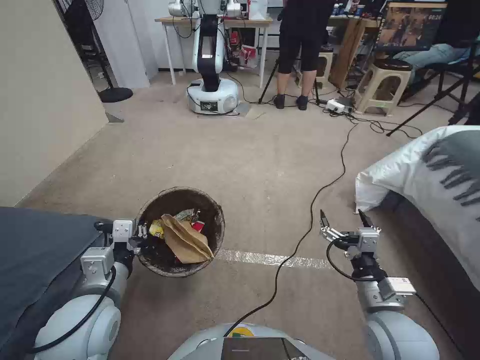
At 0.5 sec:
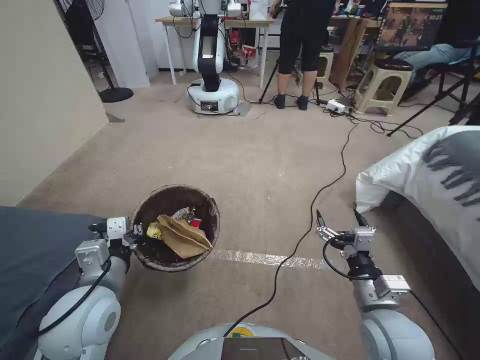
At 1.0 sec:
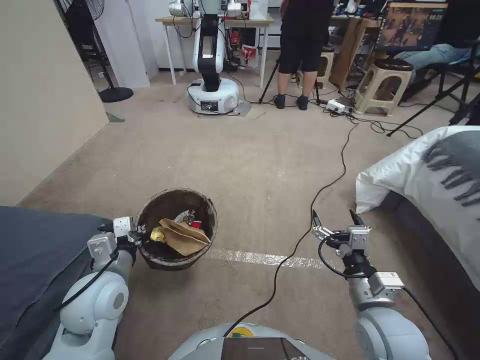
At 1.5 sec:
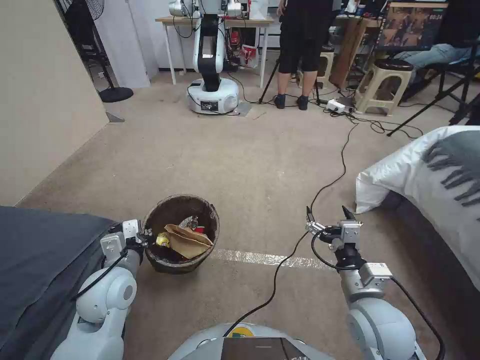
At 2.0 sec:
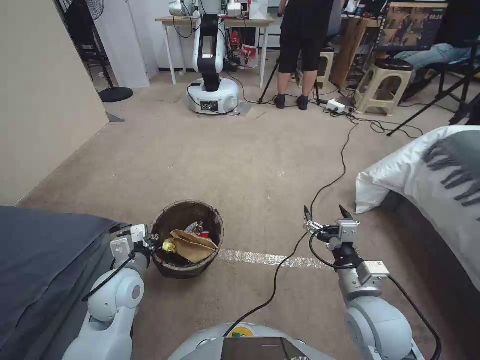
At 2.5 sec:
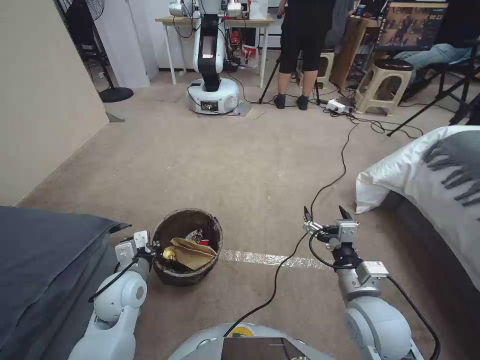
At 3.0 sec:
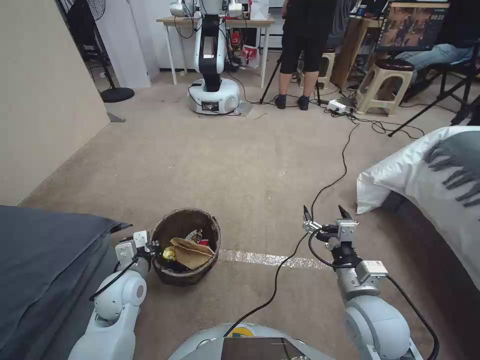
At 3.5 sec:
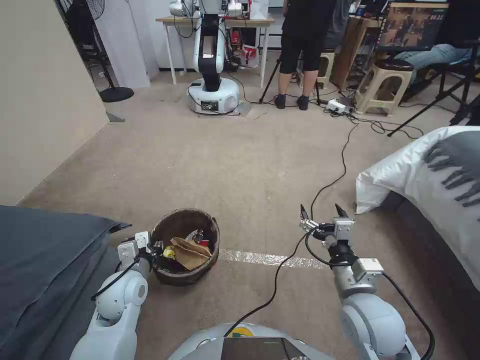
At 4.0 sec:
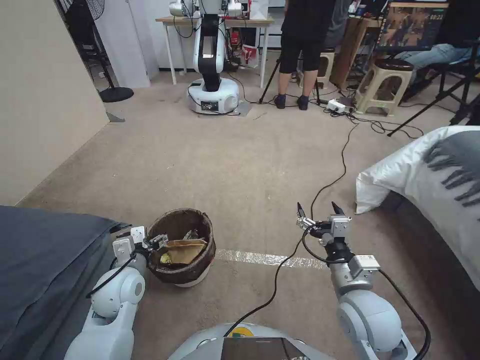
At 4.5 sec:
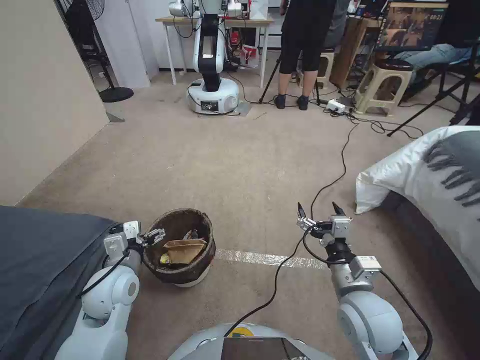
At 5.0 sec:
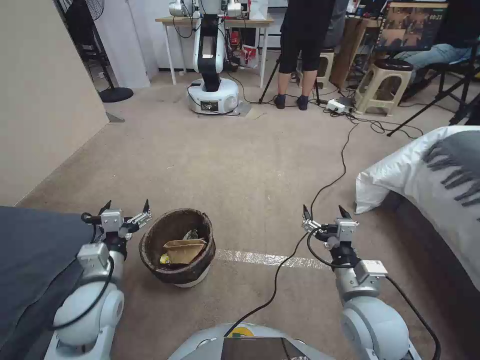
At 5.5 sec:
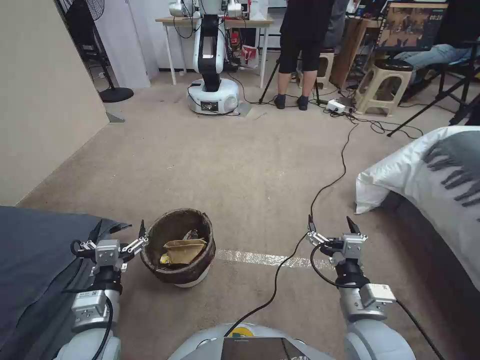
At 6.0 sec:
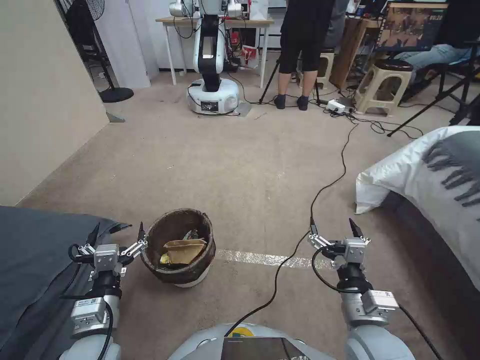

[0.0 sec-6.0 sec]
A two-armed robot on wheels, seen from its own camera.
Task of the whole recording: Pick up the trash bin, then pick up the garbage from the floor and place it into the trash bin.
0.0 sec to 2.0 sec: The left gripper is displaced downward and forward by approximately 10 cm.
2.0 sec to 4.0 sec: The left gripper opens its fingers.
4.0 sec to 6.0 sec: The left gripper is displaced backward by roughly 10 cm. Meanwhile the right gripper shifts roughly 5 cm backward.
